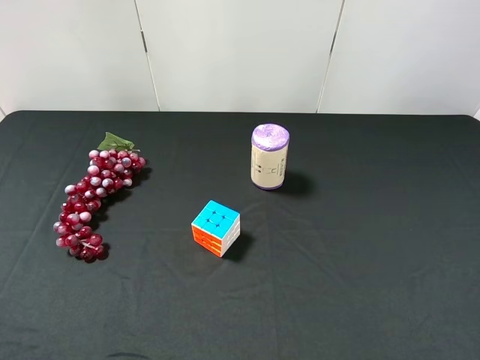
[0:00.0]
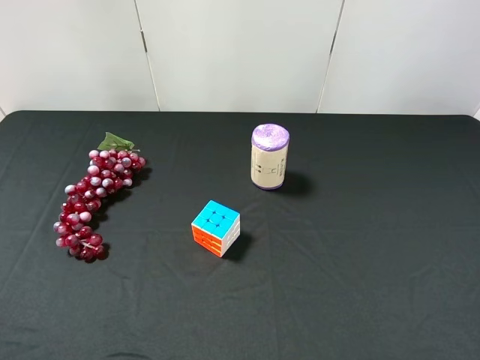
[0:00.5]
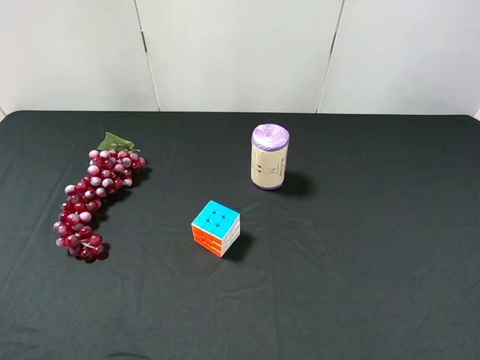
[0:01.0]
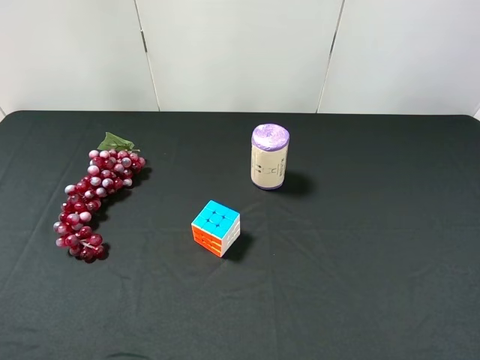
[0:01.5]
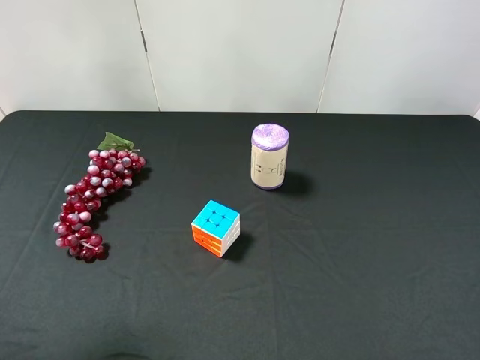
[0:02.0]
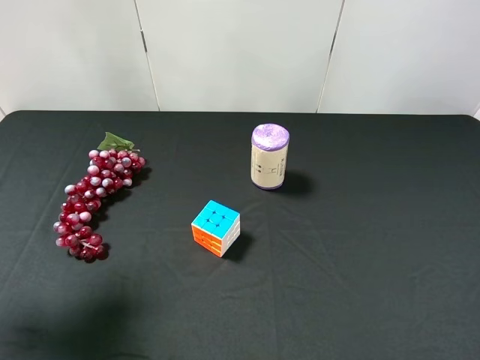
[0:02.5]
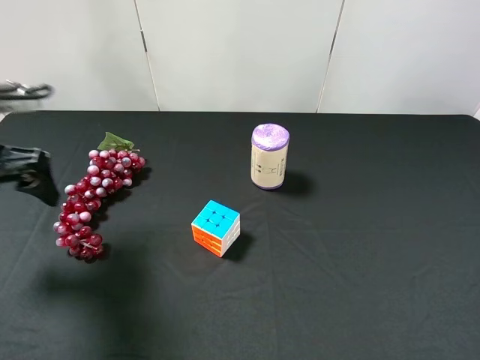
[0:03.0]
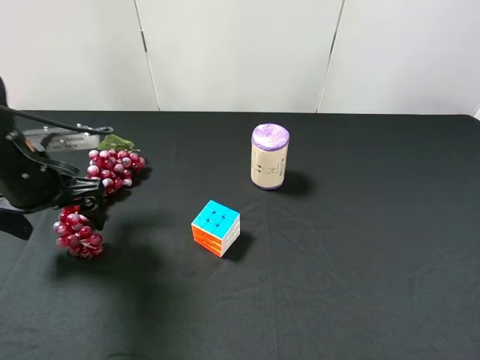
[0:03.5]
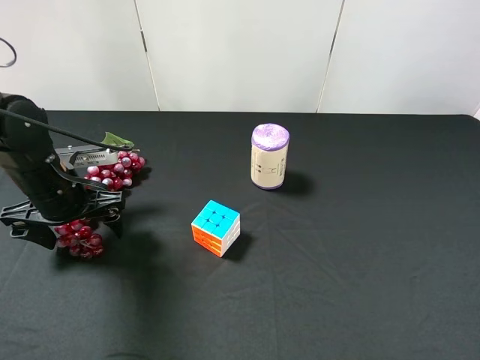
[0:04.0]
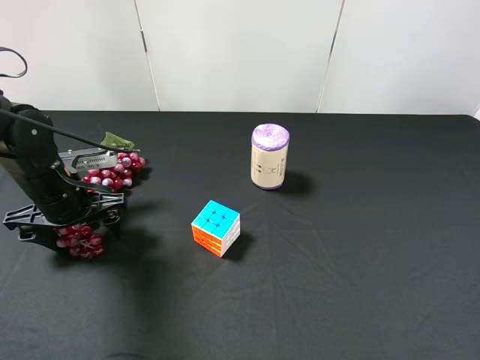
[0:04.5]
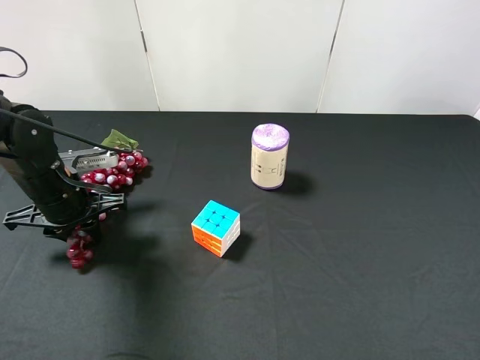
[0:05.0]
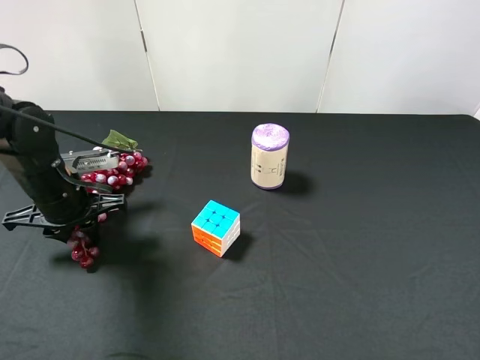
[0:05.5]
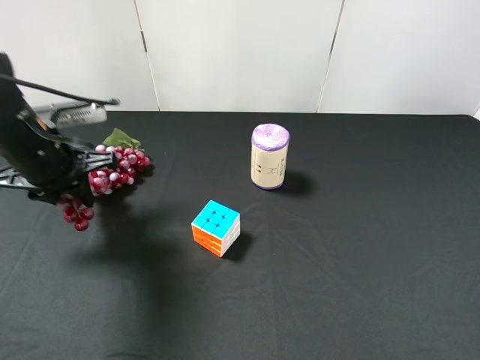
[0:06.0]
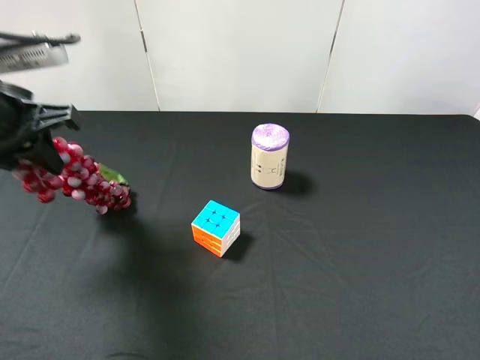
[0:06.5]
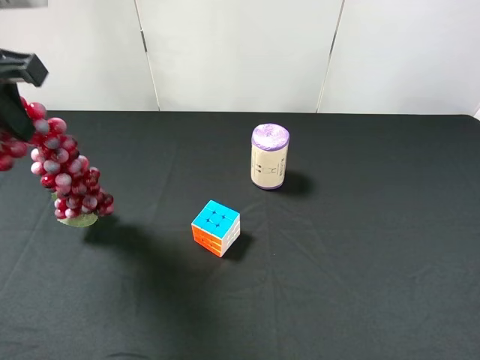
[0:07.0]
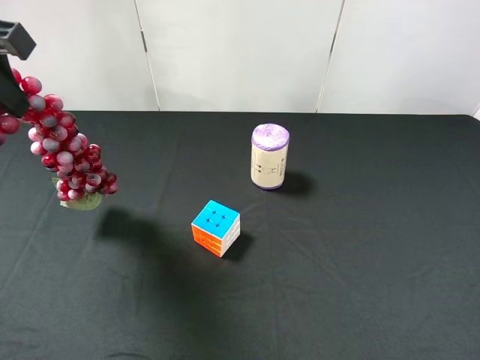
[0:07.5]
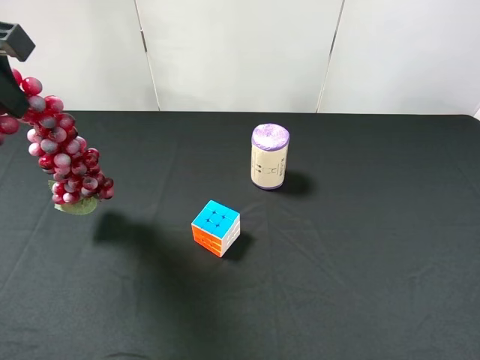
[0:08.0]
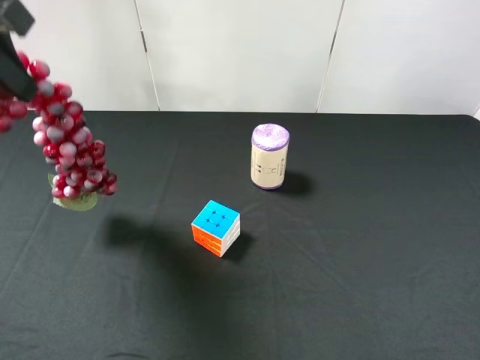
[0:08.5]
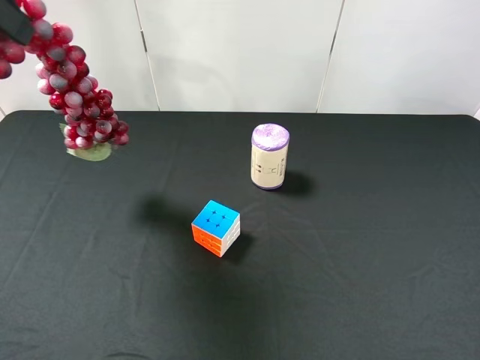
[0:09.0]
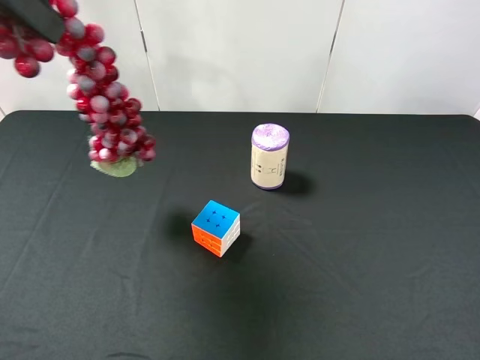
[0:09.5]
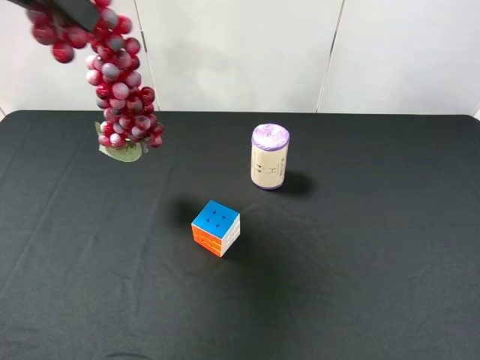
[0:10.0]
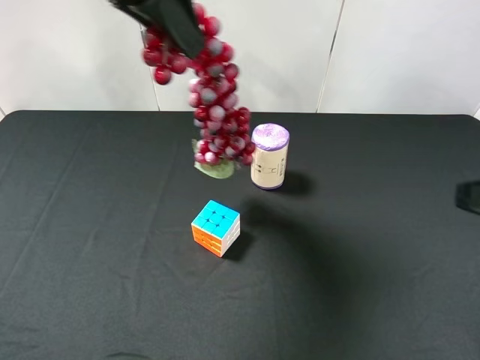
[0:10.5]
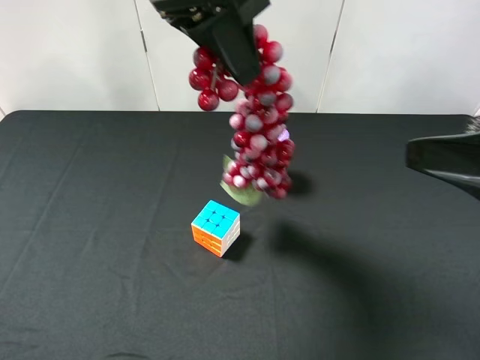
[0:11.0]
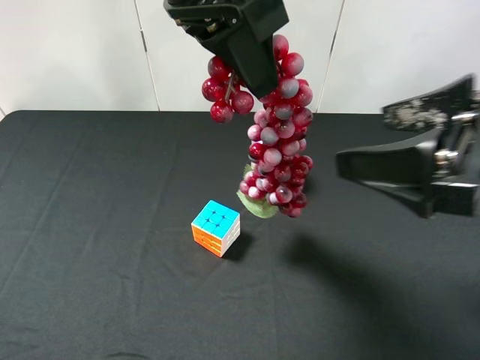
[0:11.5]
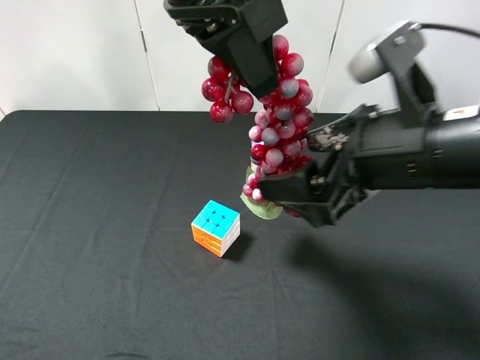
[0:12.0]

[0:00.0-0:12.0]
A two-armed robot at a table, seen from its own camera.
Task of the whole recording: use the left gripper to pick up the item and transfer it from the left gripper to the right gripper.
0:02.0 to 0:04.0: The left gripper moves downward, forward and to the right, roughly 30 cm.
0:04.0 to 0:06.0: The left gripper heads upward, covering roughly 5 cm, and closes up.
0:06.0 to 0:08.0: The left gripper shifts about 15 cm upward.
0:08.0 to 0:10.0: The left gripper heads upward, covering approximately 5 cm.
0:10.0 to 0:12.0: The left gripper moves to the right, approximately 15 cm. Meanwhile the right gripper heads forward and to the left, covering some 20 cm.

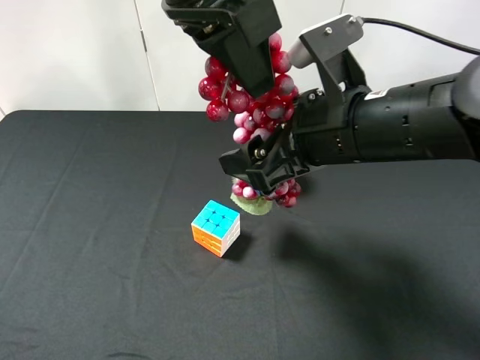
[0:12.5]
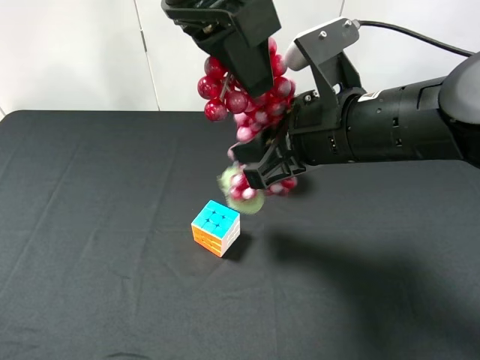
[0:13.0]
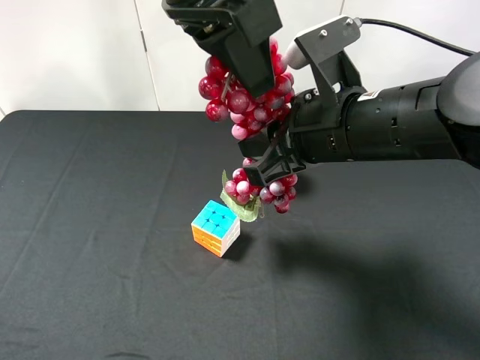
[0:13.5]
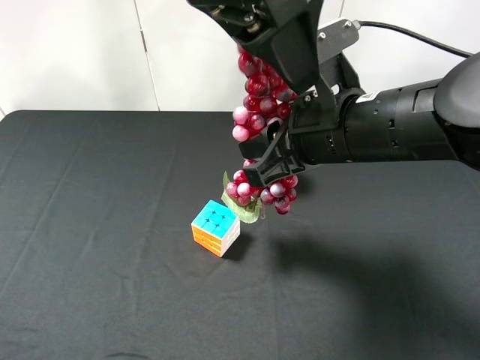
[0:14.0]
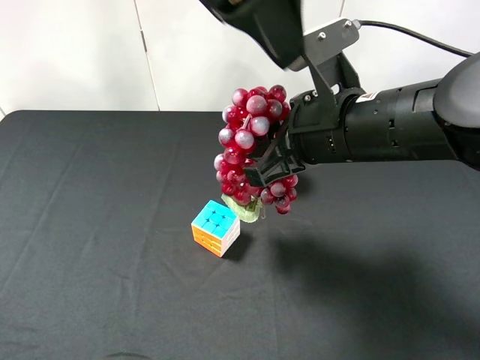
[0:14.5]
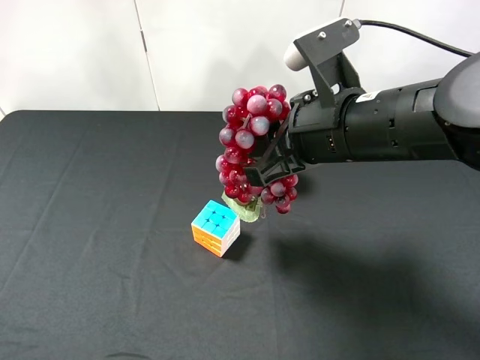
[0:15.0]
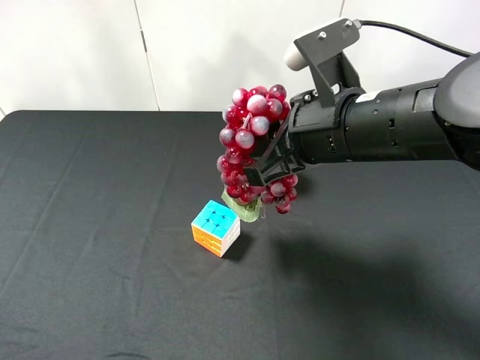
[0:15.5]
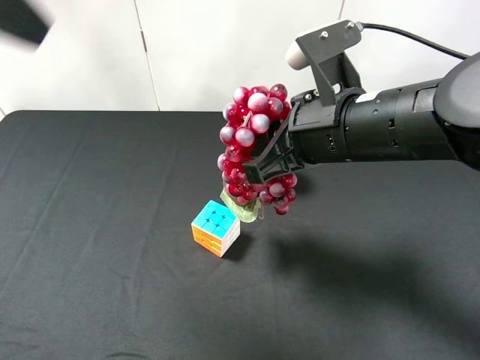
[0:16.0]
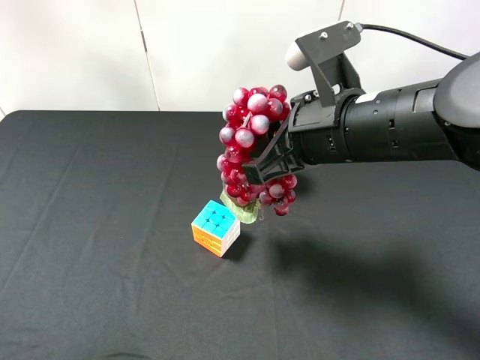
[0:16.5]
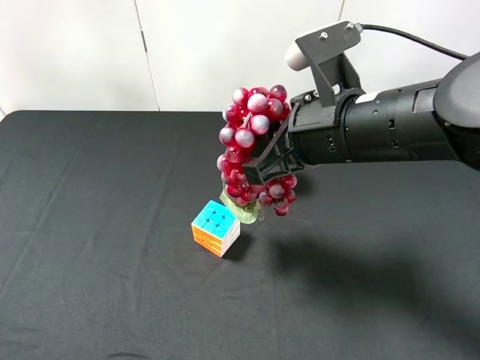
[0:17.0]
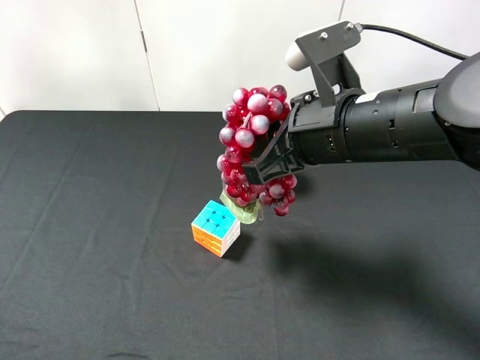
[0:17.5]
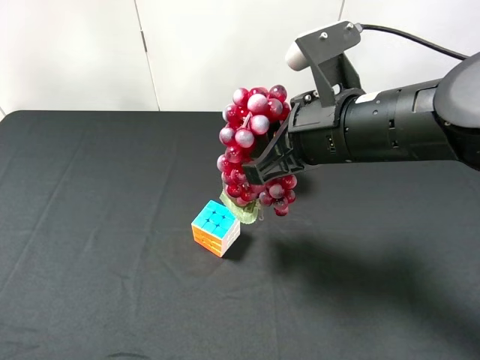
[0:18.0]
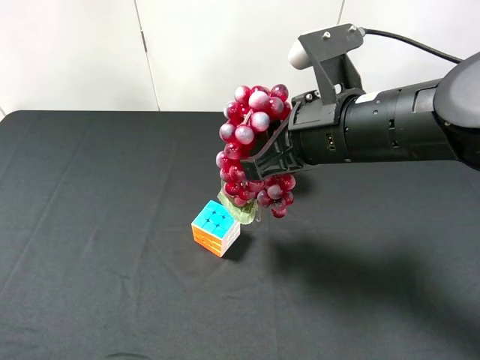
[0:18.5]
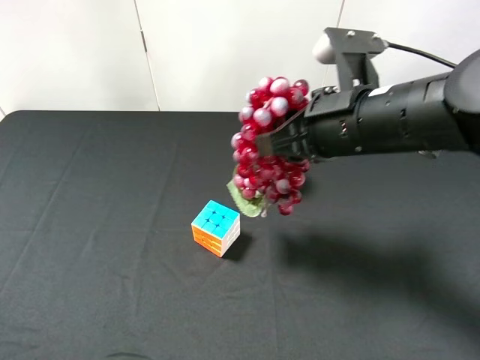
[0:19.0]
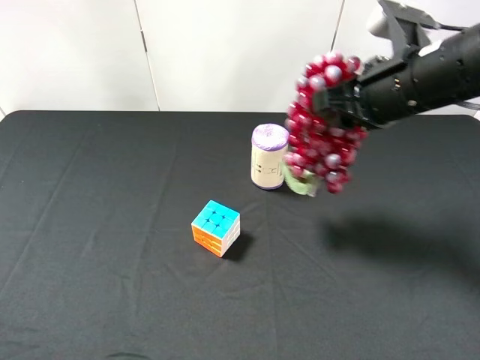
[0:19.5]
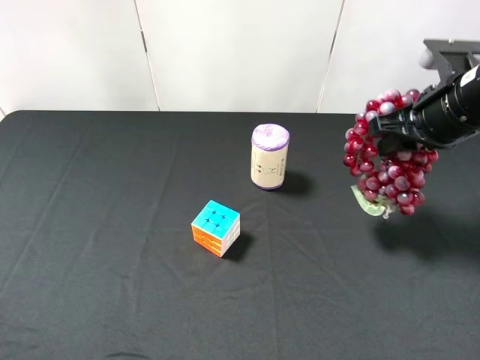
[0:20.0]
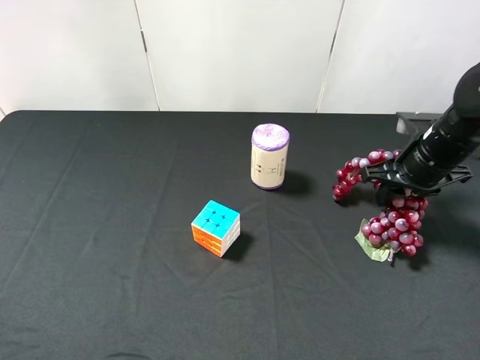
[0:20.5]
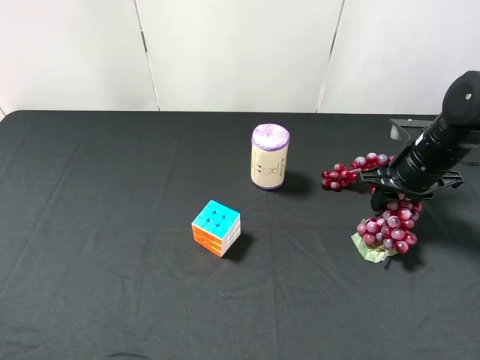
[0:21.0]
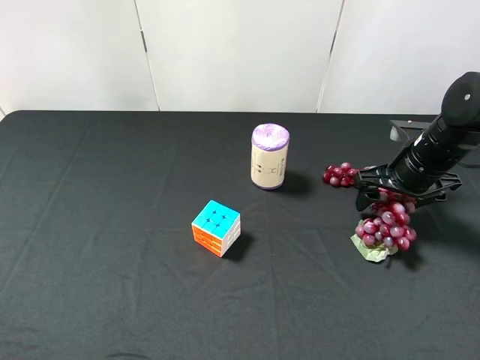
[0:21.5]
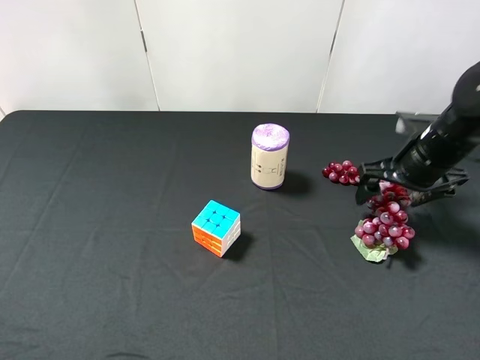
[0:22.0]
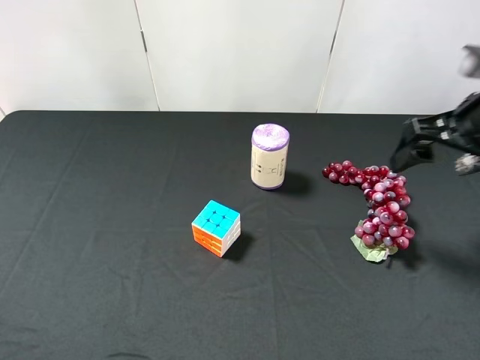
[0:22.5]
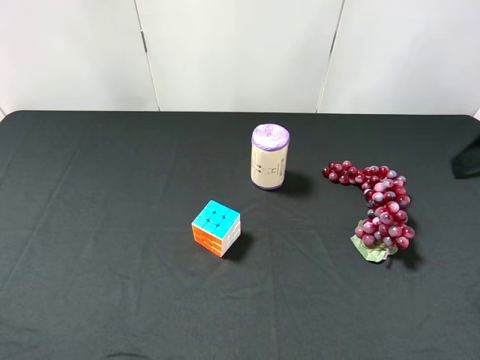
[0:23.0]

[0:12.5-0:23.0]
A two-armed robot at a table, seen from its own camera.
Task of the whole recording: use the left gripper to pick up the item and transfer it from the left gripper to the right gripper.
0:12.5 to 0:14.5: The right gripper closes its fingers. The left gripper opens.
0:14.5 to 0:16.5: The left gripper heads to the left and backward, covering about 30 cm.
0:16.5 to 0:19.0: The left gripper goes about 10 cm downward and backward.
0:19.0 to 0:21.0: The right gripper is displaced to the right, downward and forward by some 20 cm.
0:21.0 to 0:23.0: The right gripper heads upward and backward, covering some 25 cm, and opens up.

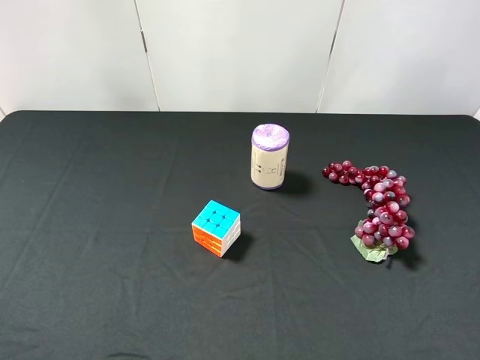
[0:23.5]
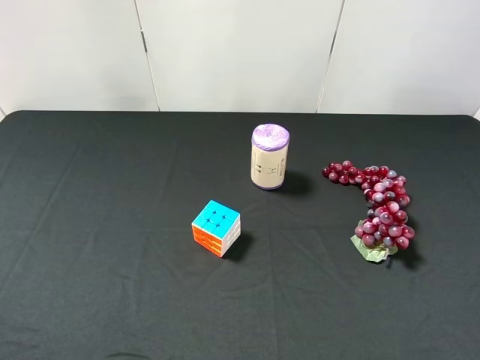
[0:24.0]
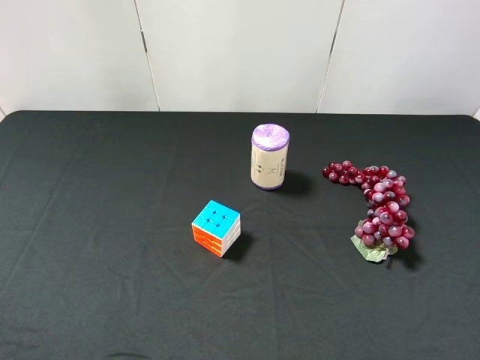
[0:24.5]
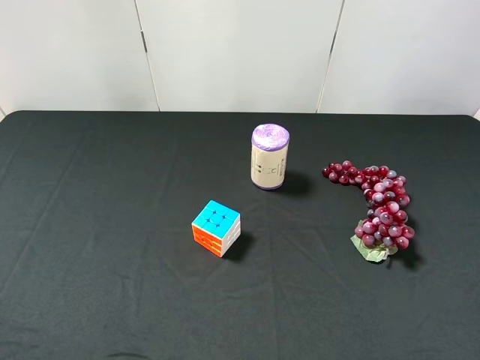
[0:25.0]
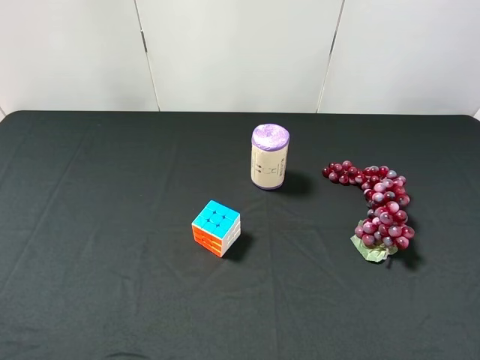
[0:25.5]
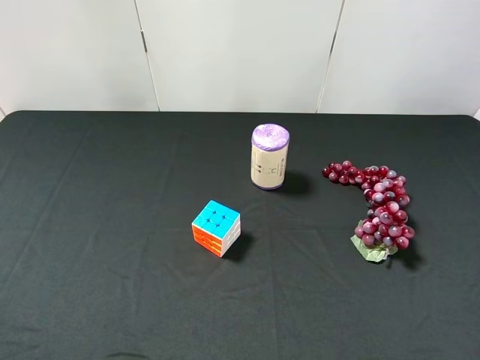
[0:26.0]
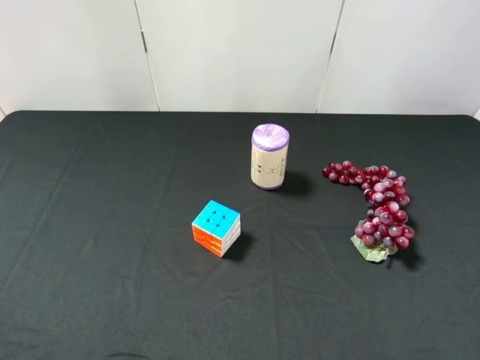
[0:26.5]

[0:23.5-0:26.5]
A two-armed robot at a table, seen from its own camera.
Task of the whole recording: use the left gripper to pick up the item and transfer it from the left gripper to the right gripper.
0:25.0 to 0:26.5: Neither gripper changes place.
